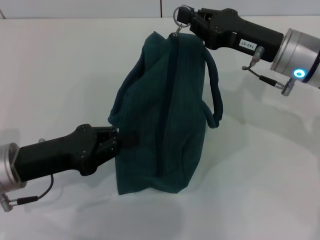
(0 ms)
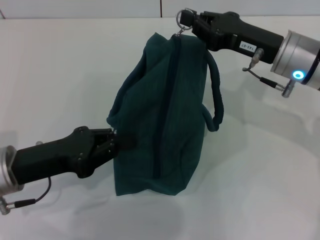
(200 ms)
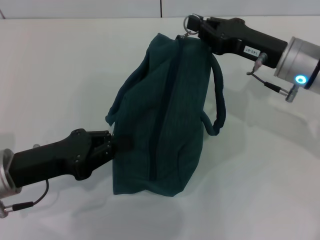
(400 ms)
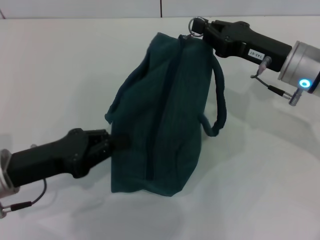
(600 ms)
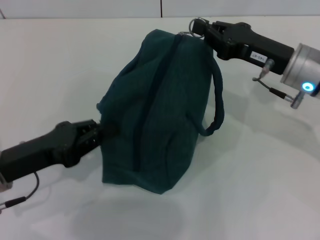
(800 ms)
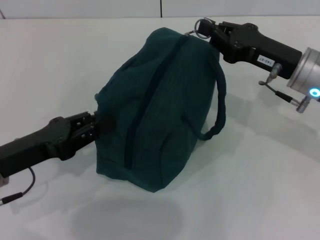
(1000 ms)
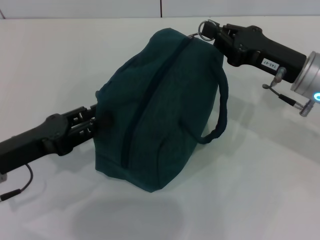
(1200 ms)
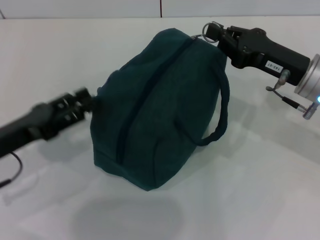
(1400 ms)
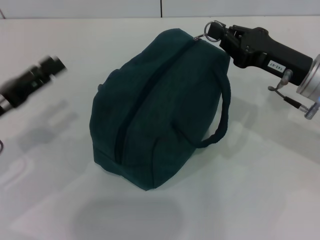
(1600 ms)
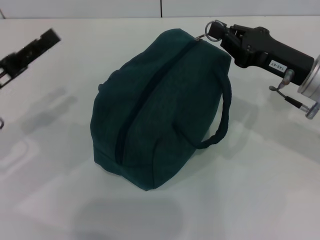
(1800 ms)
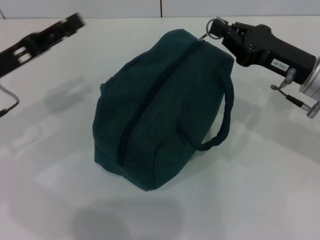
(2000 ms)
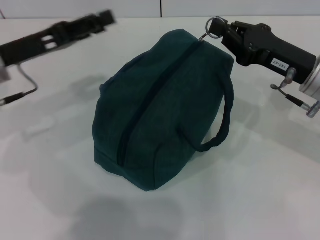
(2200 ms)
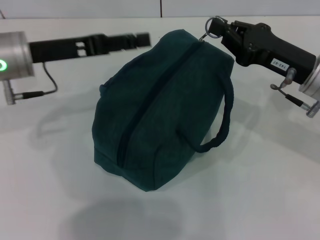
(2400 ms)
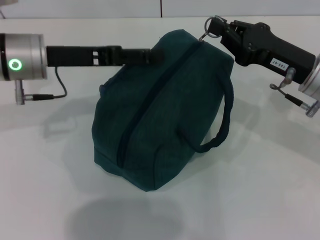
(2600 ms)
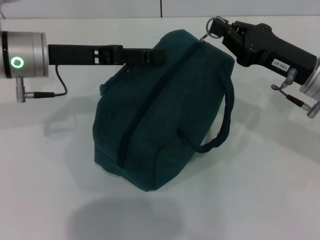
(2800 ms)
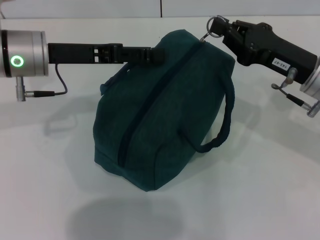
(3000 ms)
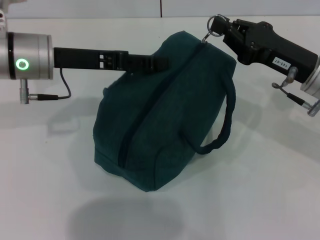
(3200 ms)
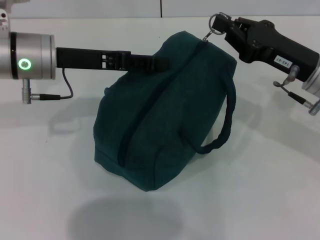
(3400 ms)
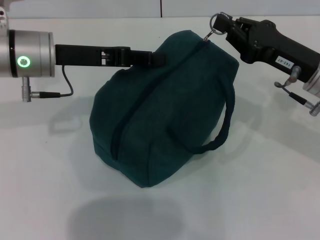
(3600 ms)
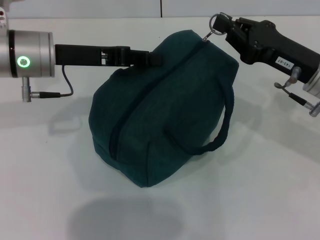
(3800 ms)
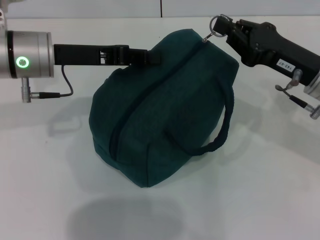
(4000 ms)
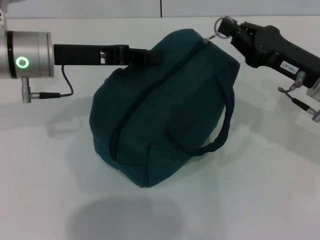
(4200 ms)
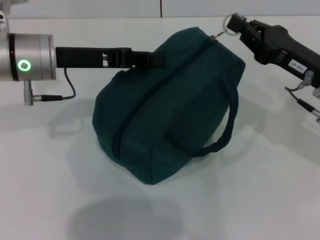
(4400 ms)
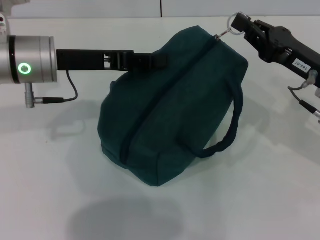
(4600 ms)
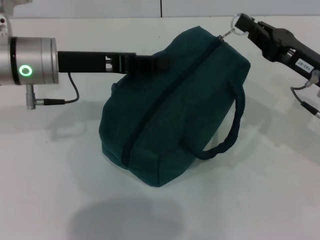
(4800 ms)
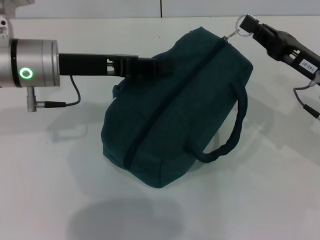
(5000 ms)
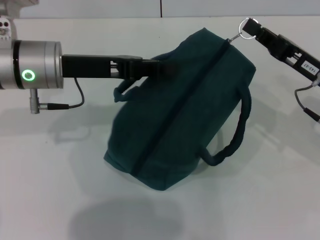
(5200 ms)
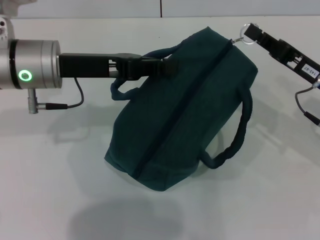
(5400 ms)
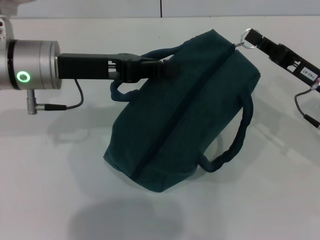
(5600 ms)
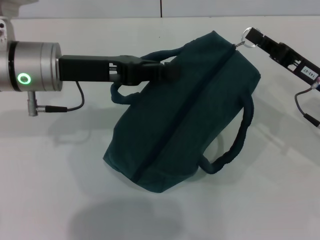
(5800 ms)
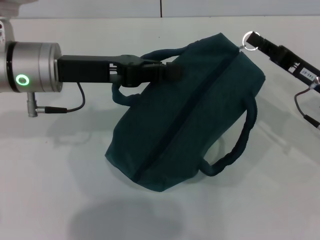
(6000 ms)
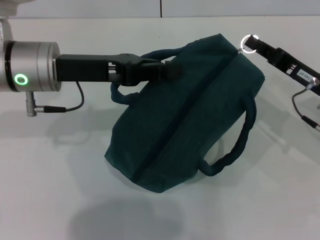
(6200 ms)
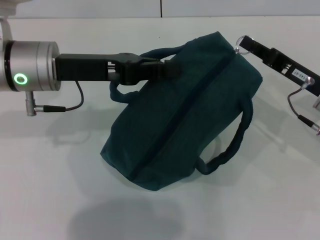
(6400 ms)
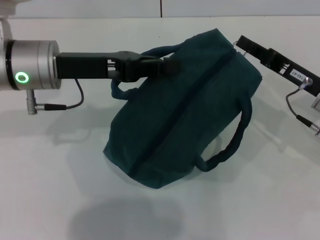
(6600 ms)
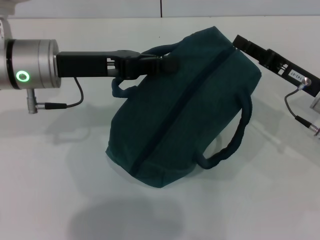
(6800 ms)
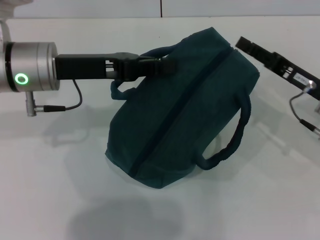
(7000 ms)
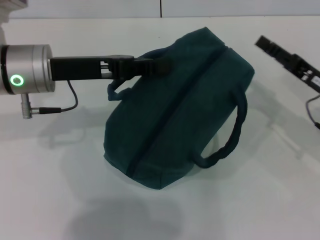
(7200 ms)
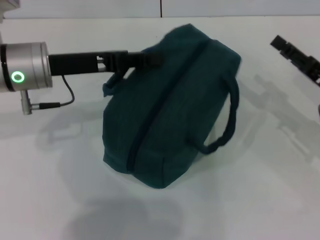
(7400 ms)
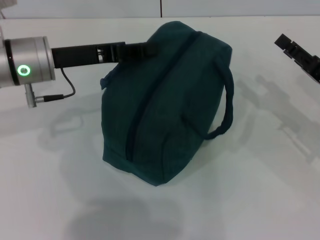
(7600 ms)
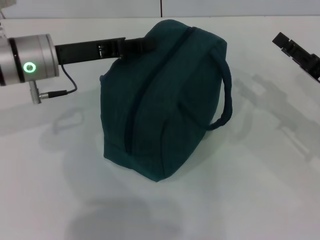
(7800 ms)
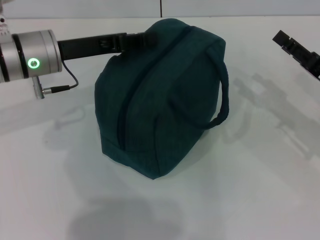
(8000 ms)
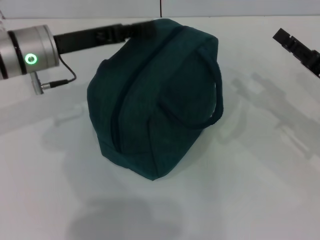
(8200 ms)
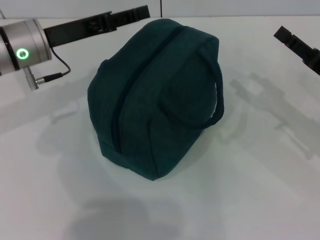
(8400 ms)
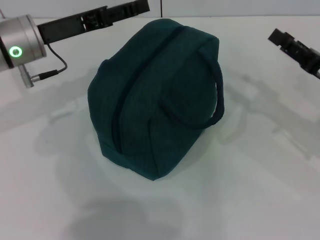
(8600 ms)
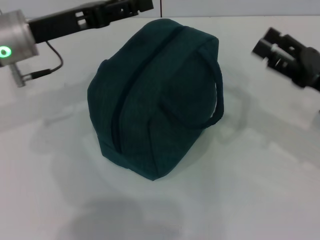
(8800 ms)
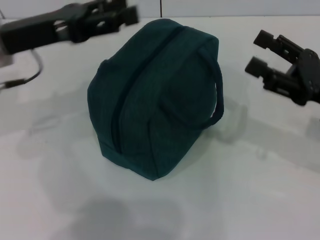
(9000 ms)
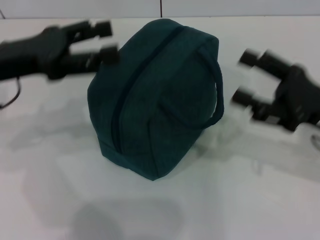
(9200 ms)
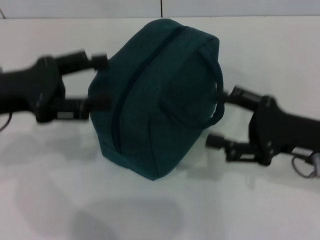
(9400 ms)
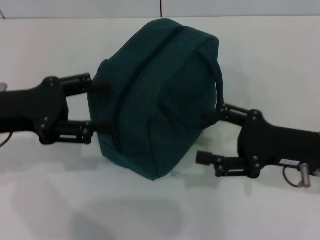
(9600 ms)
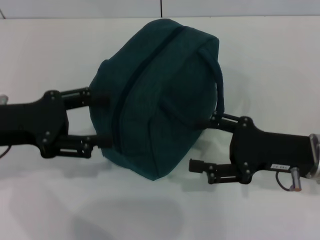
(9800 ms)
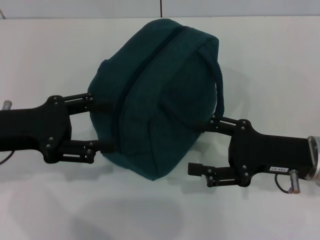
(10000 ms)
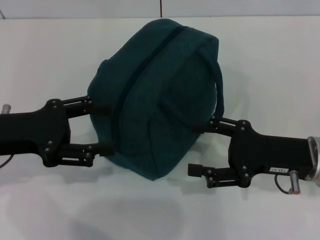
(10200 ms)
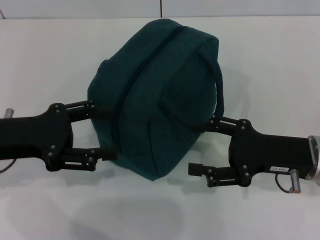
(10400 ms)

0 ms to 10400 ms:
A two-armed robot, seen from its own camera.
Step, 0 ms to 6800 ms: Zip up the lunch bag with your right hand.
Step, 7200 ms to 8400 ms: Hold the lunch bag with your left hand.
0 ms to 1400 ms: The left gripper opens up.
1400 ms to 3000 ms: The left gripper moves forward, upward and to the right, roughly 15 cm.
3000 ms to 4400 ms: The left gripper closes.
6000 ms to 7400 ms: The right gripper opens up.
7400 ms to 9000 ms: The right gripper changes place by roughly 5 cm. Meanwhile the left gripper moves about 5 cm, and opens.
9000 ms to 10400 ms: The right gripper changes place by some 5 cm. Meanwhile the left gripper shifts roughly 10 cm backward and downward.
